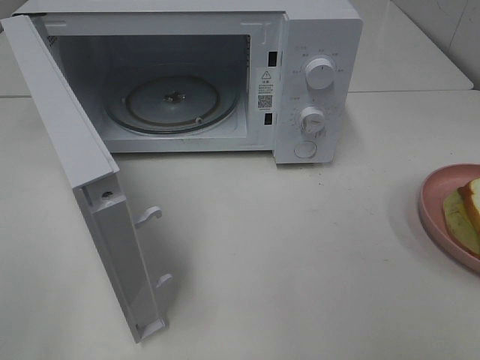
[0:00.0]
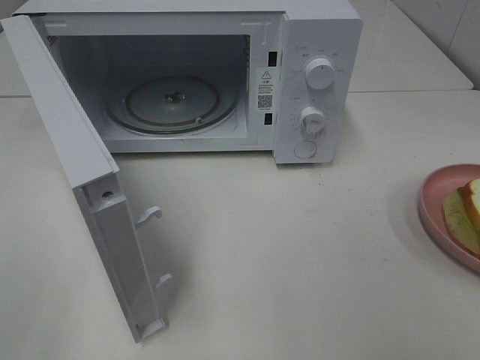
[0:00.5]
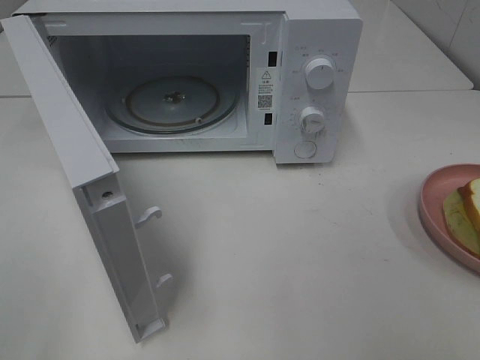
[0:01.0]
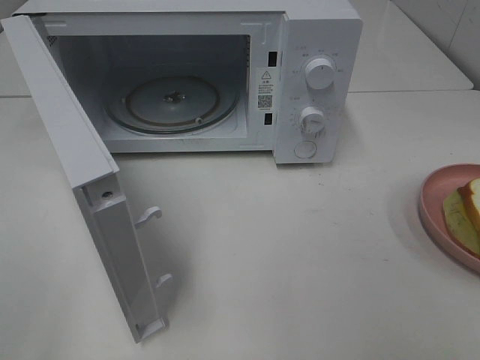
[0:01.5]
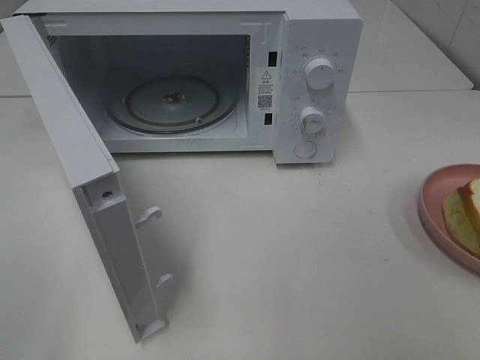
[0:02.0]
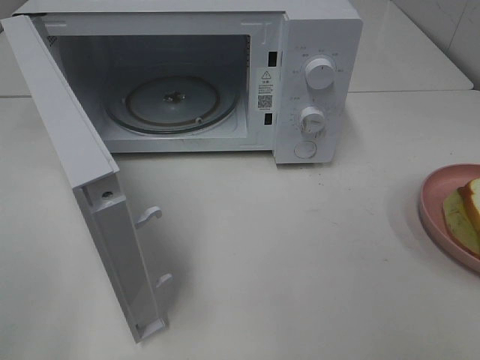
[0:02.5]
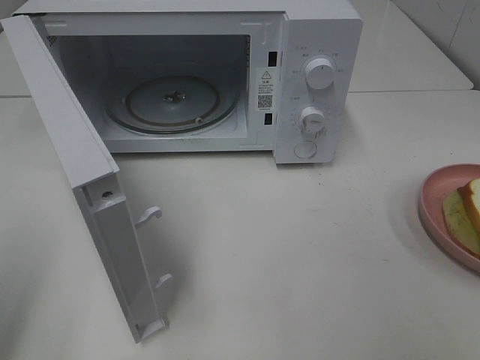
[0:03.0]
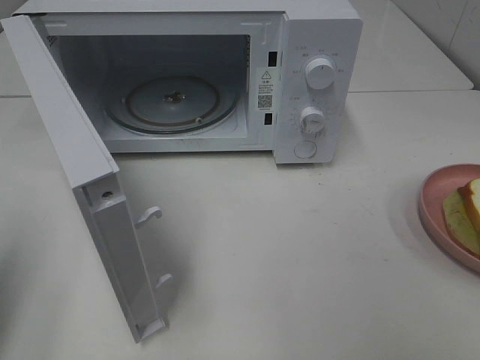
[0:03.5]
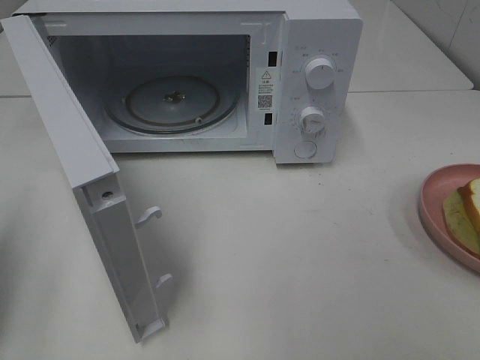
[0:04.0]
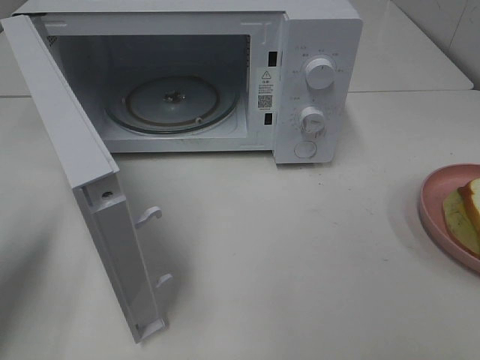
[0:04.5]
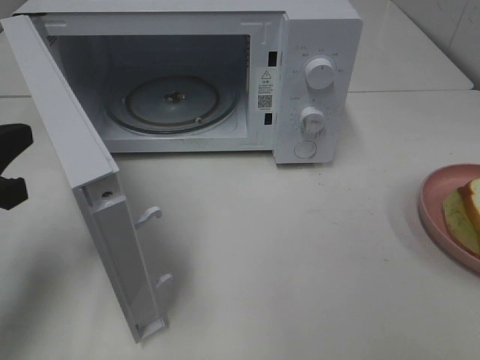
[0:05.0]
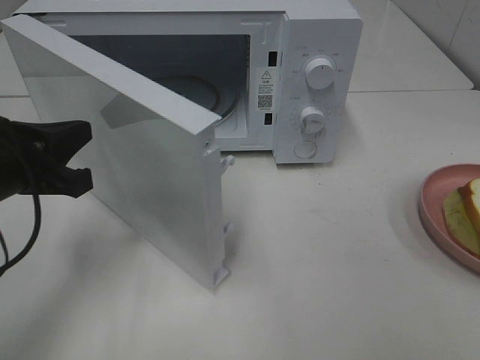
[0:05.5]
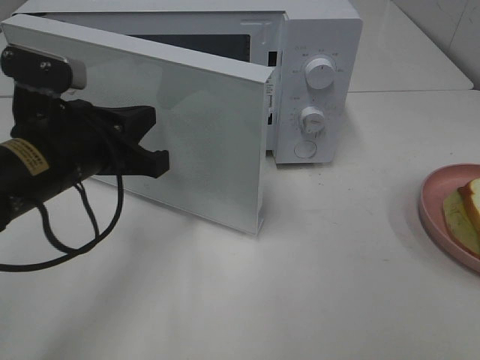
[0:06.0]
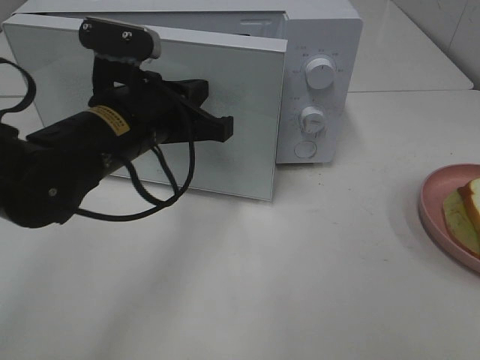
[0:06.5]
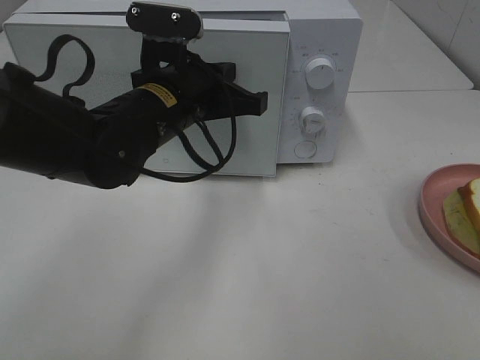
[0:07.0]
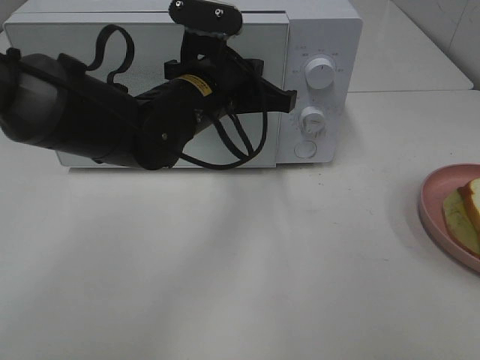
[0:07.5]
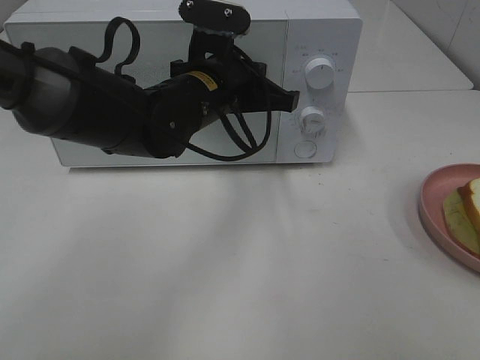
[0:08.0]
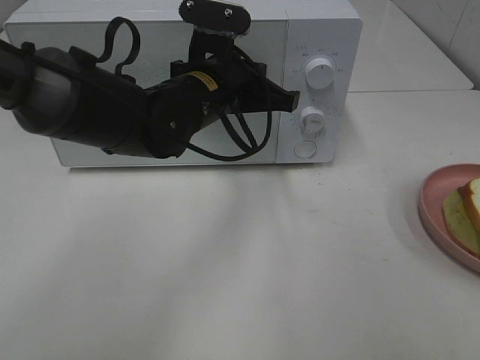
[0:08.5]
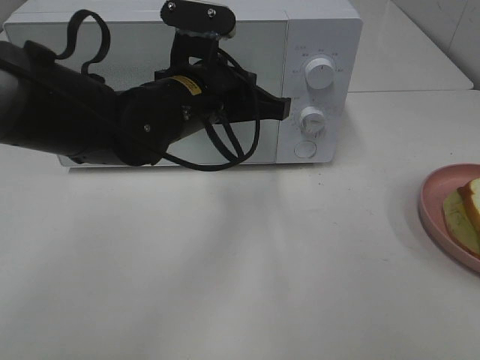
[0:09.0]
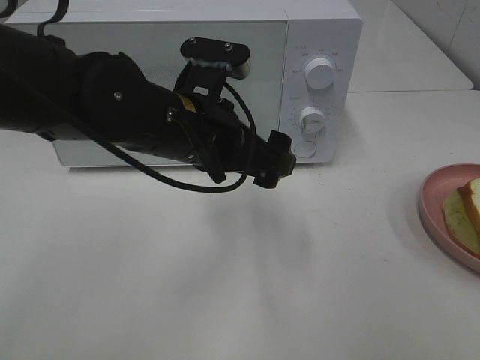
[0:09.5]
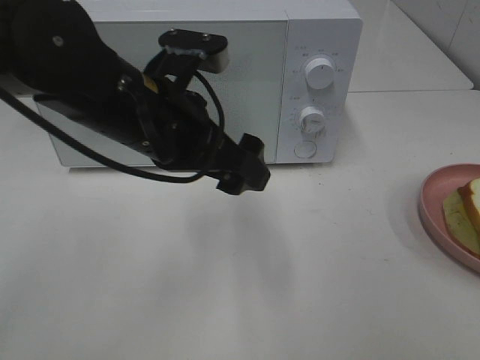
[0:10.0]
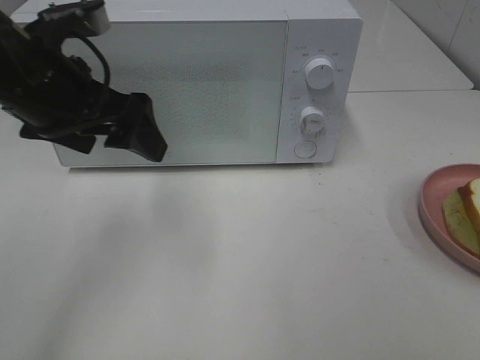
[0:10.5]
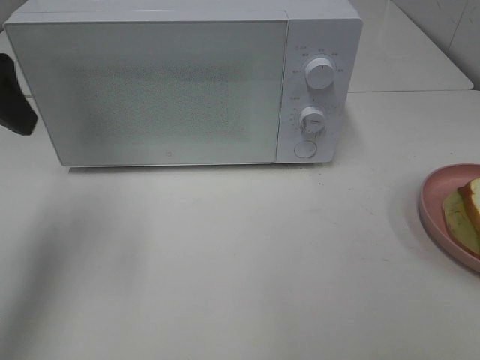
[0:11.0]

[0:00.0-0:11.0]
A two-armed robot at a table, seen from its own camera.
Task of the whole recording: Heat Sandwich.
Step, 0:00.0 to 0:08.5: Left hand: close the microwave door.
0:02.0 to 0:03.5: The left gripper moves forward, some 10 cm, and closes.
0:03.5 to 0:05.5: The left gripper travels to the right, forward and downward by roughly 15 cm.
0:05.5 to 0:07.5: The left gripper is displaced to the right and forward by roughly 20 cm.
0:07.5 to 0:09.0: The grippers stay close to where they were, moving slightly.
0:09.0 to 0:11.0: The left gripper goes about 25 cm to the left and upward, and opens.

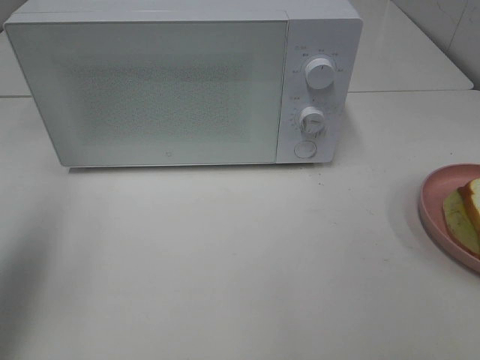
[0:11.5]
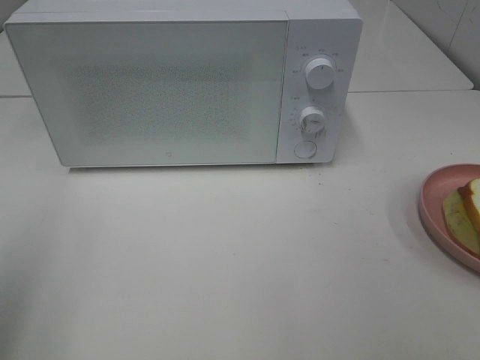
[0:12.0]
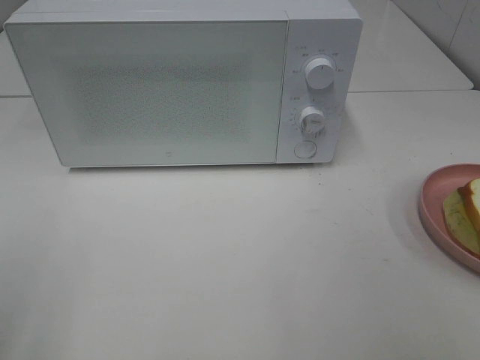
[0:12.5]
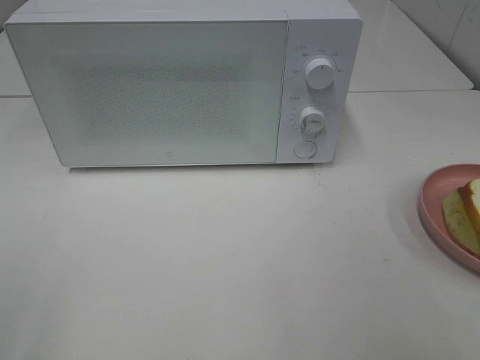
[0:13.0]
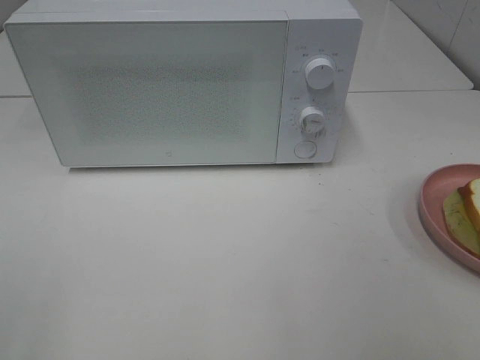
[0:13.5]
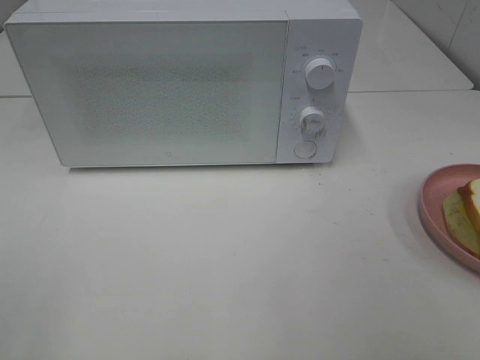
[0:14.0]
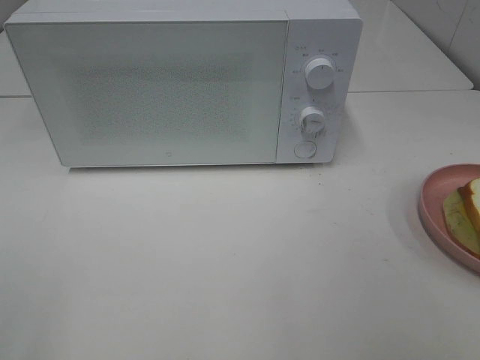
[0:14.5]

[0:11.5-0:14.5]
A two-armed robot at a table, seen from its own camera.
Task of the whole recording: Heat Sandwich.
0:11.5 to 0:13.0: The left gripper goes roughly 20 cm backward.

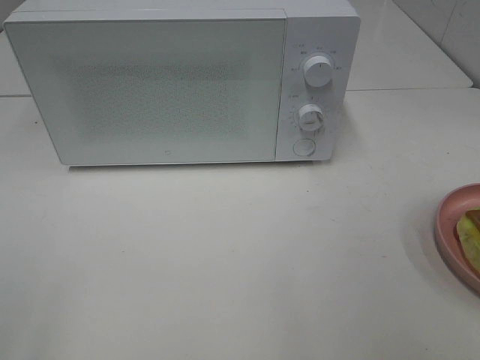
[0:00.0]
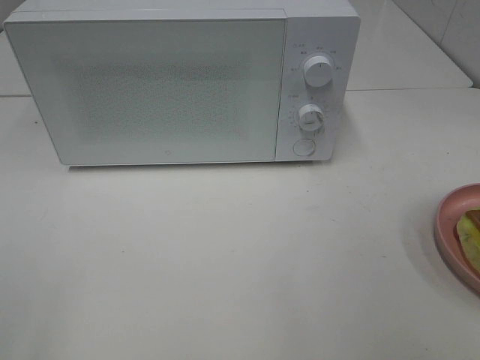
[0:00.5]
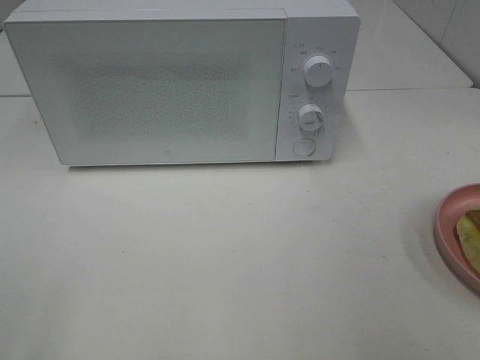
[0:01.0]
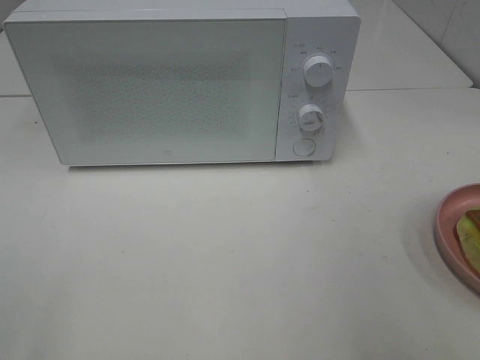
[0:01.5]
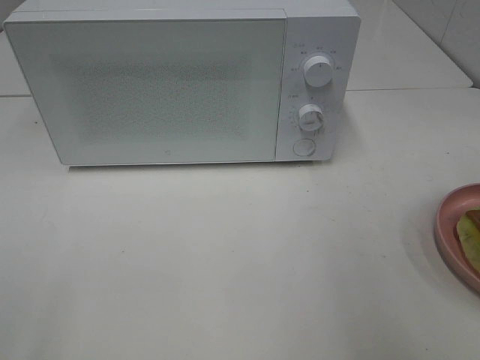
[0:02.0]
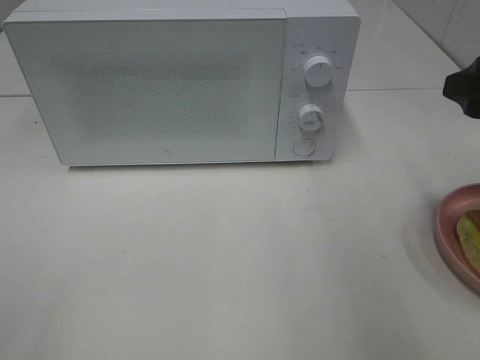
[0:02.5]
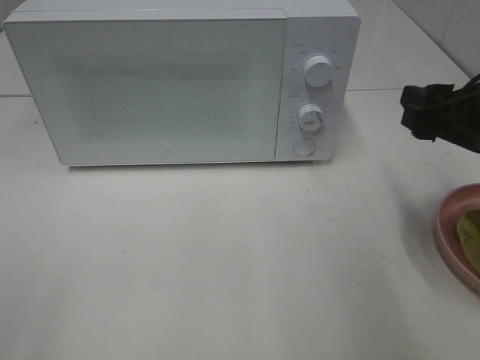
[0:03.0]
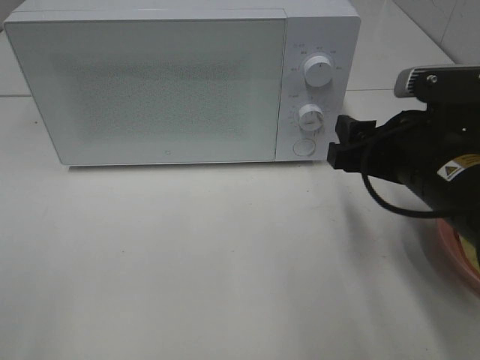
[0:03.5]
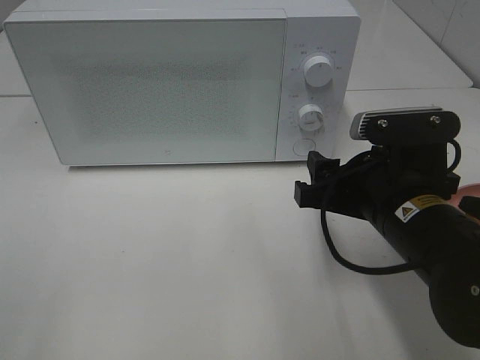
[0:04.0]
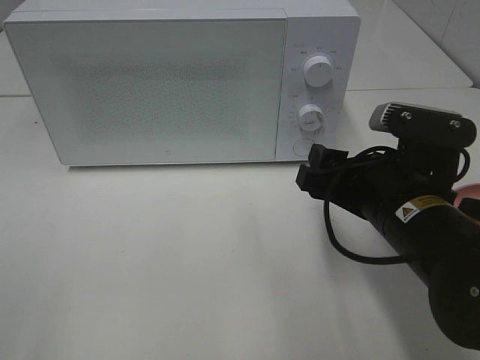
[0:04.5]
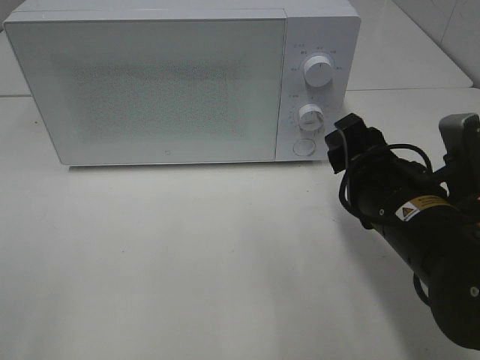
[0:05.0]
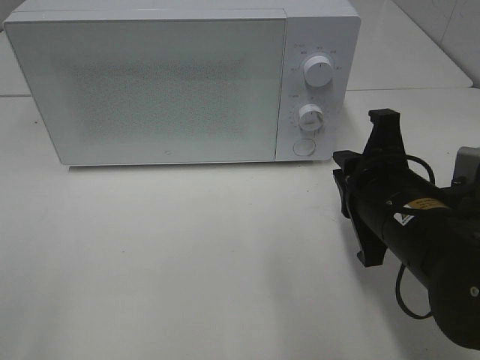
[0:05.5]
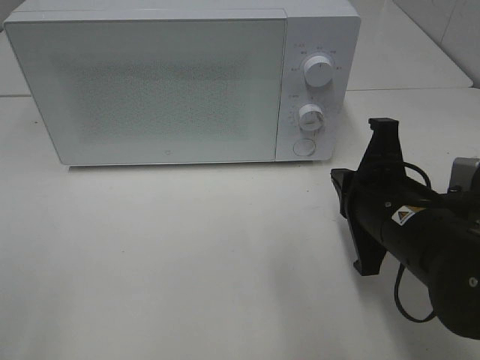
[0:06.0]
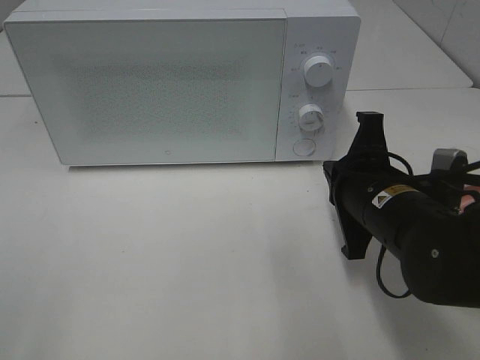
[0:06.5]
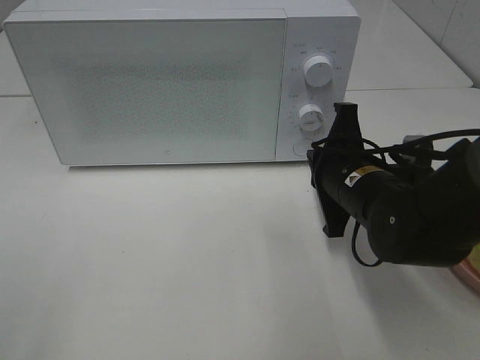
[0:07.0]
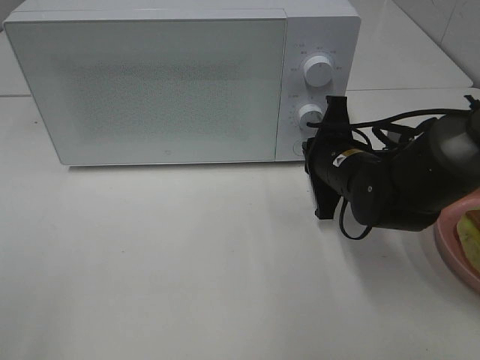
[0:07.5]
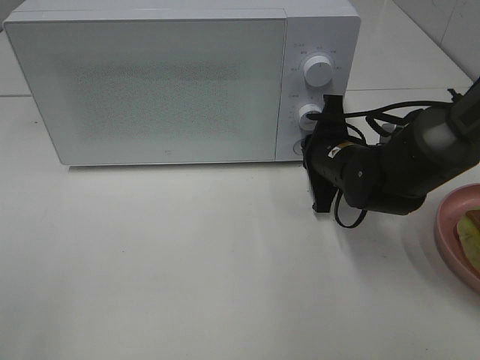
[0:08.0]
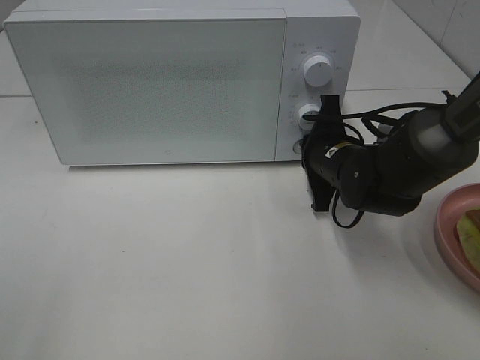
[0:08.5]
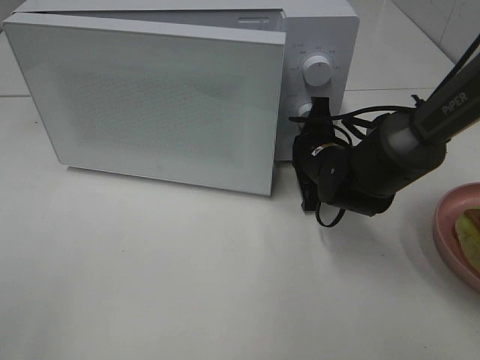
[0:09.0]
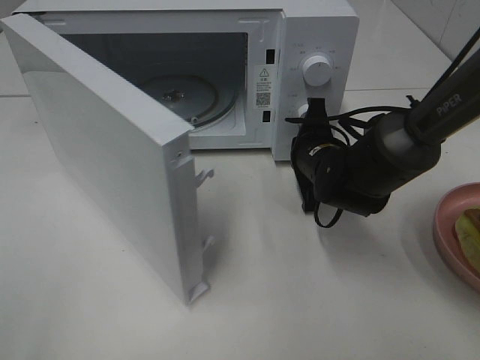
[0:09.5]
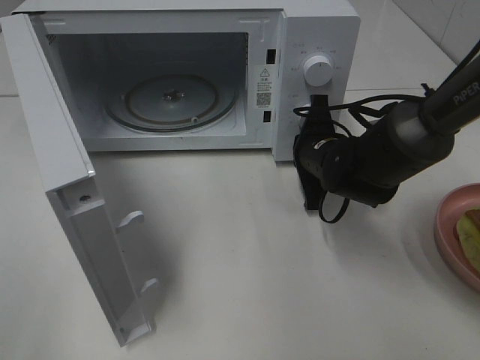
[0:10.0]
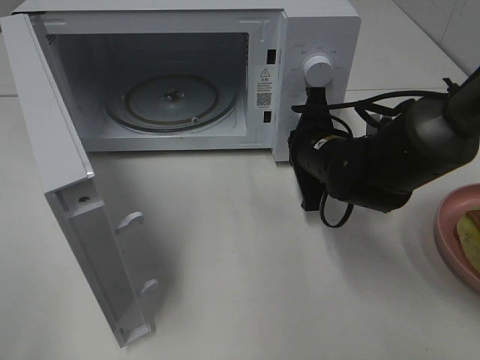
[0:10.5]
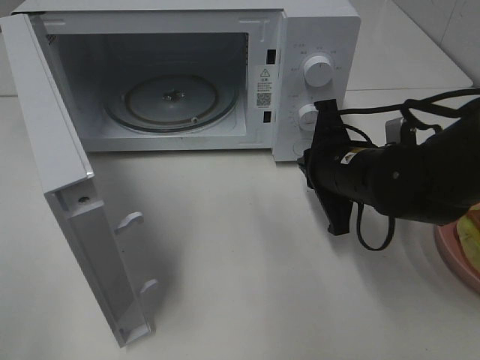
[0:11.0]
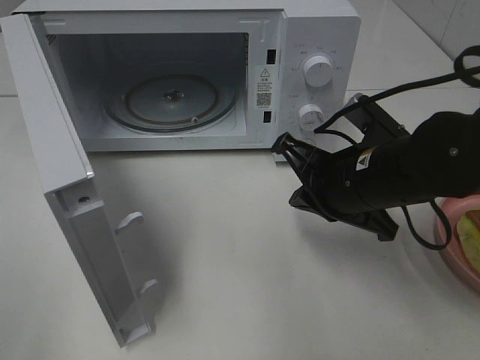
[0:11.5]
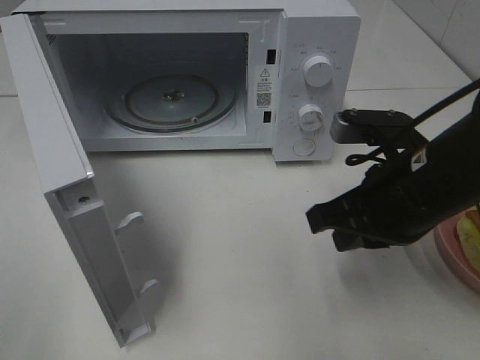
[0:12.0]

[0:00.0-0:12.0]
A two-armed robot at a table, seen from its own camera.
Task of the whole recording: Heat Sandwich.
Step, 0:00.0 to 0:10.0: Right hand: press the switch.
0:02.0 to 0:04.0: The right gripper moves downward and to the left, roughly 20 cm.
0:04.0 to 0:06.0: The right gripper closes its fingers.
0:06.0 to 0:08.0: The right gripper heads forward, covering about 15 cm.
0:10.0 to 0:12.0: The right gripper goes roughly 15 cm backward and upward.
